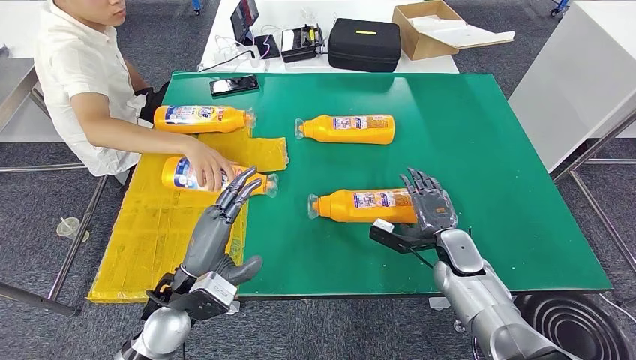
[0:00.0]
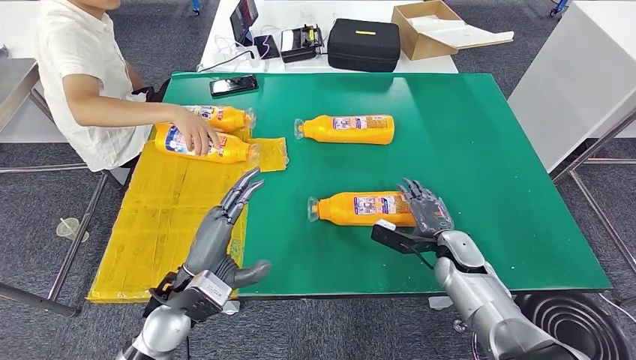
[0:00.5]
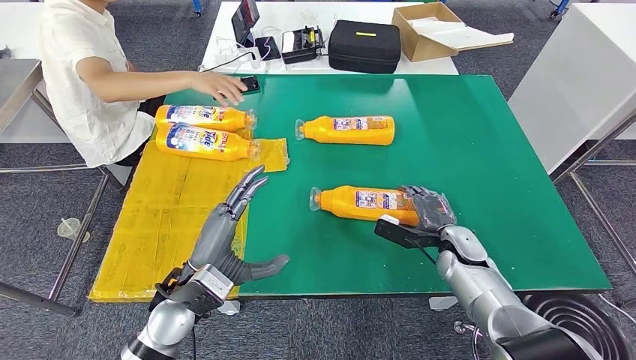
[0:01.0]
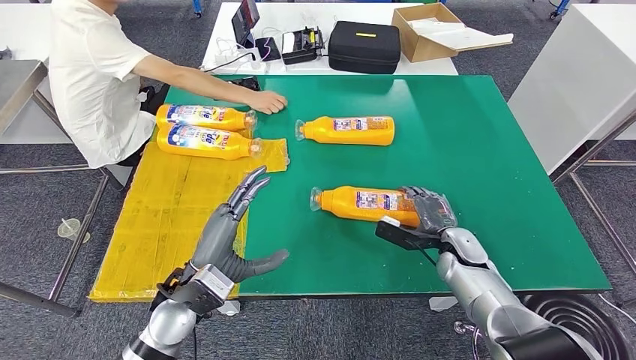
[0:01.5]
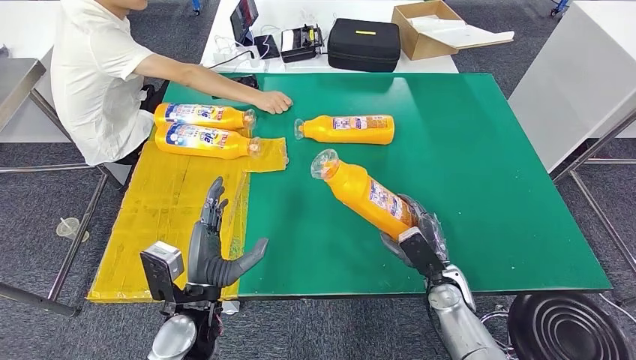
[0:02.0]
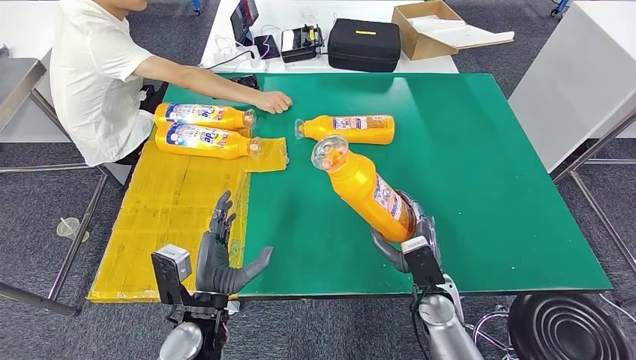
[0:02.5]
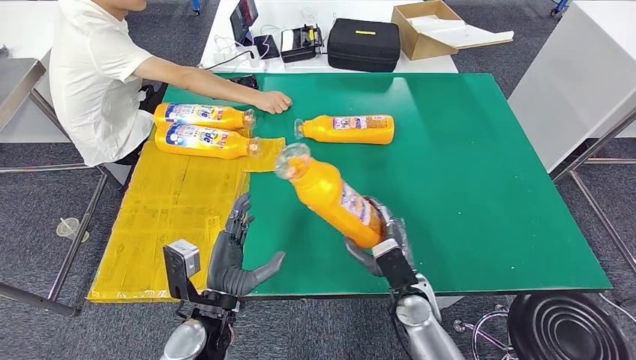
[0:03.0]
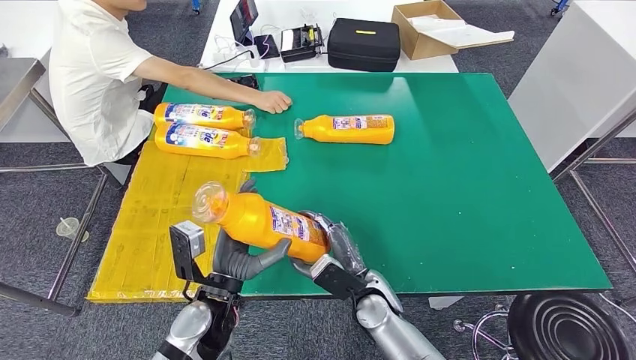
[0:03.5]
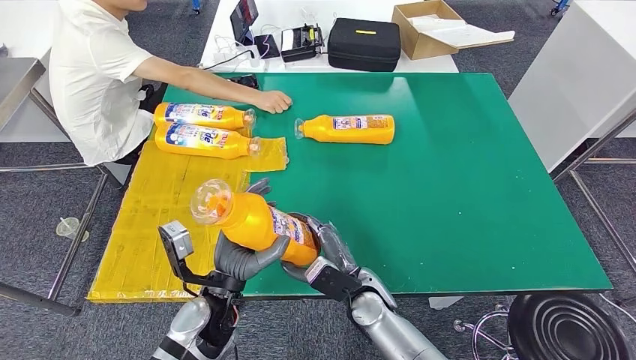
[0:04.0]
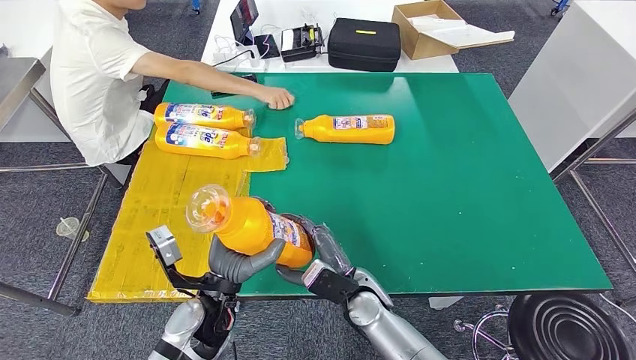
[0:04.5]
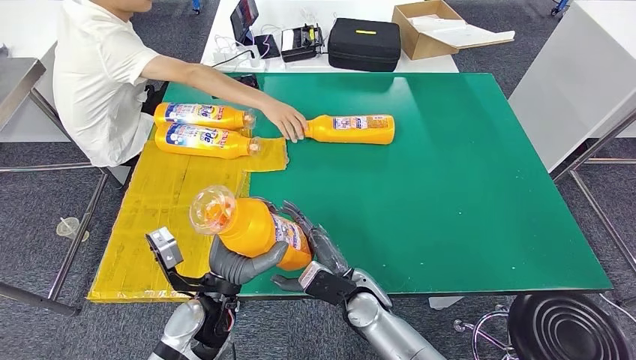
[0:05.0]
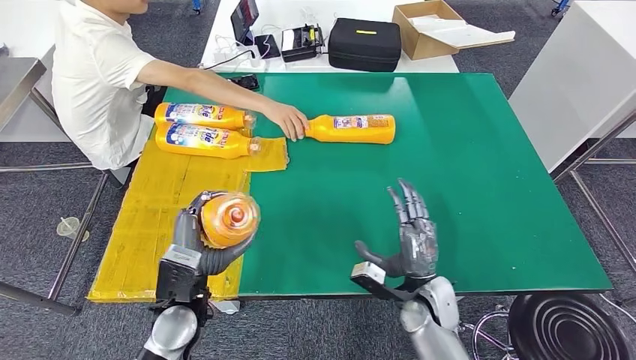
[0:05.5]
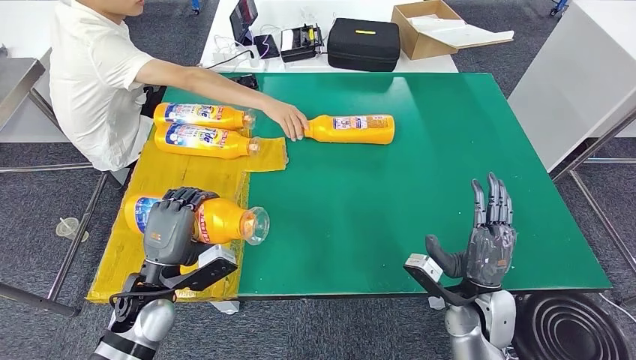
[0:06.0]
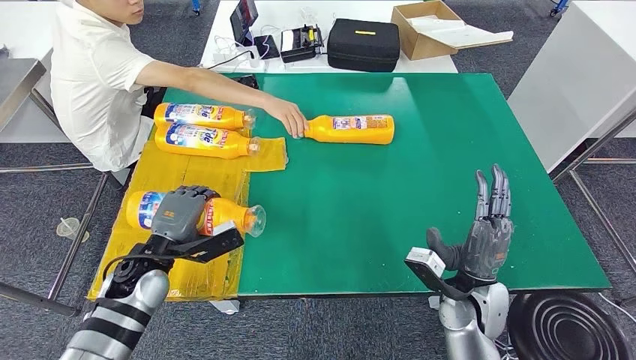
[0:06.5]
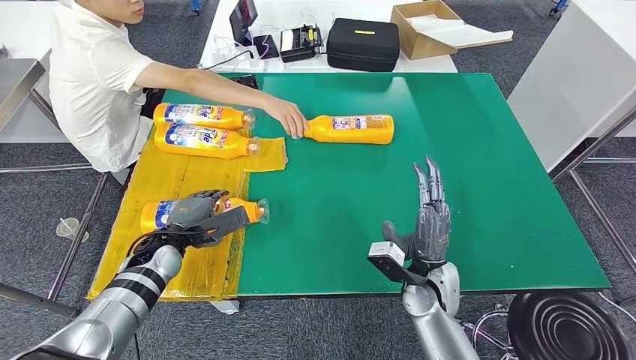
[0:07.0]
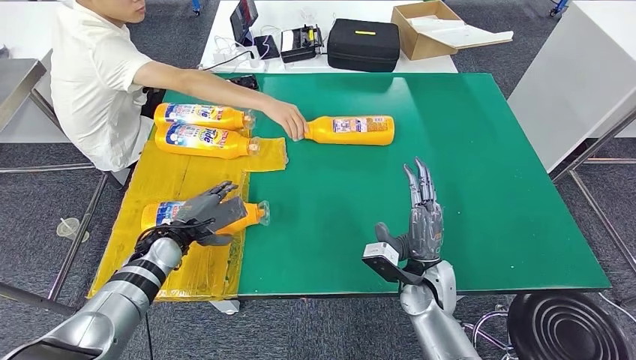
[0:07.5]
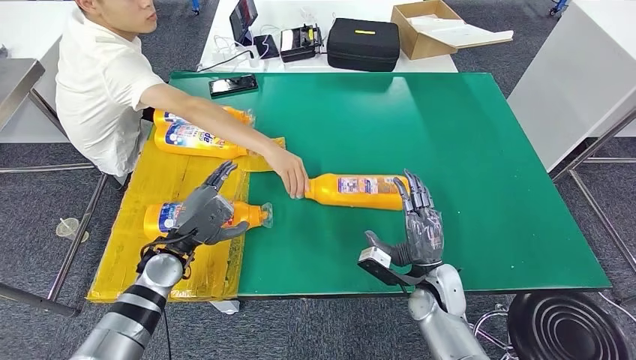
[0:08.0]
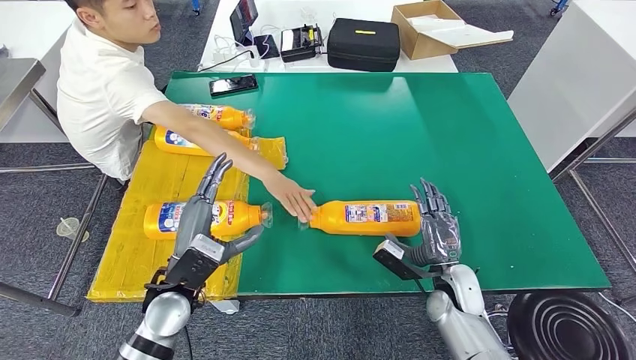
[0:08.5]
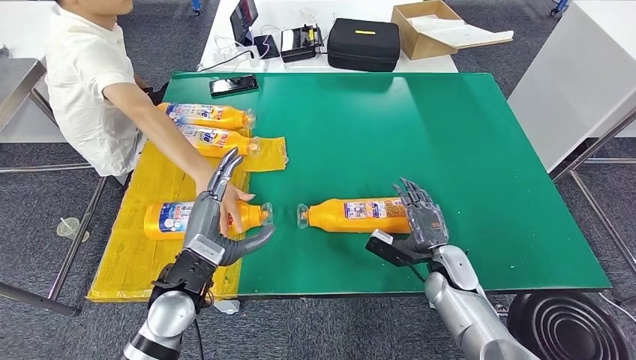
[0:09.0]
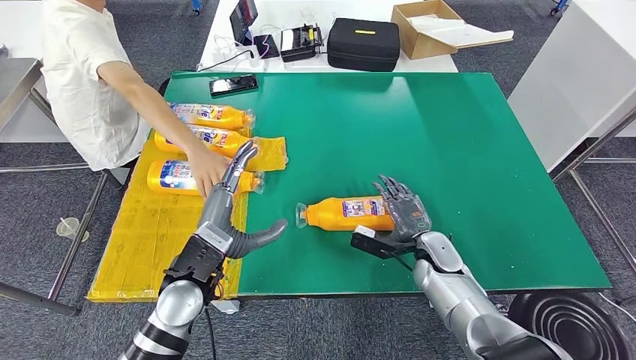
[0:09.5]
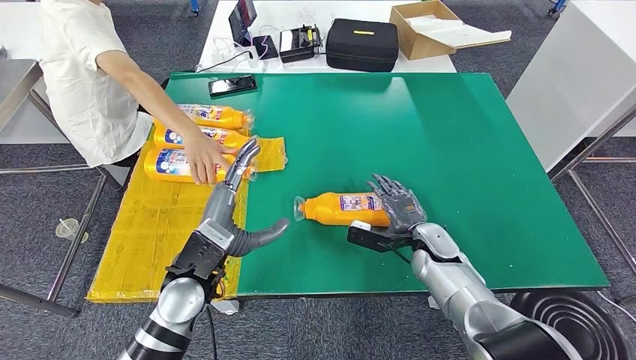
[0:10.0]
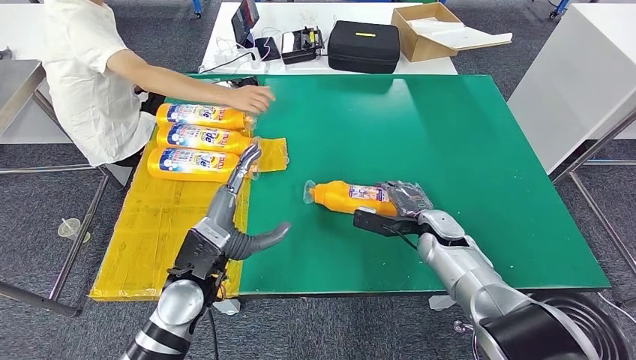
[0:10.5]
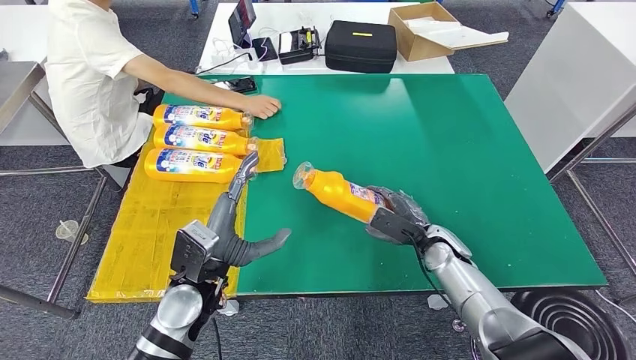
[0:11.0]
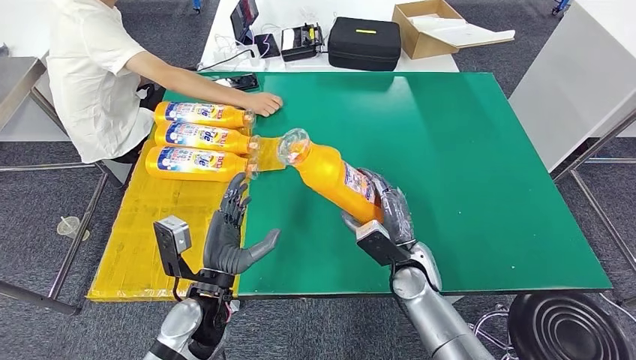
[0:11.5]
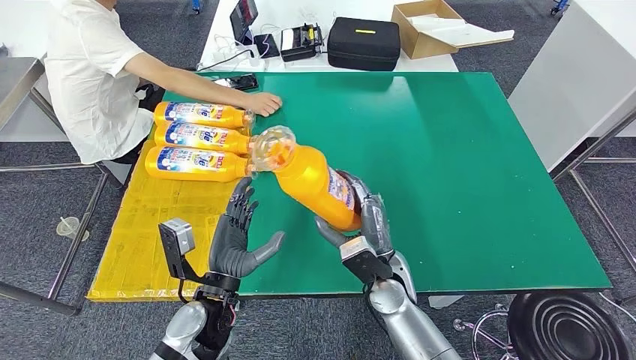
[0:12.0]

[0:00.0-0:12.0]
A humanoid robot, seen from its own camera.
Step, 0:00.0 to 0:02.5: Pick up the bottle from the table.
Step, 0:03.0 to 0:06.0: Flip the bottle to face forward.
0:00.0 to 0:02.0: The right hand goes roughly 5 cm backward.
0:02.0 to 0:04.0: The right hand is displaced to the left by approximately 15 cm.
0:04.0 to 0:06.0: The left hand is displaced to the left by some 10 cm, while the right hand is displaced to the right by some 20 cm.

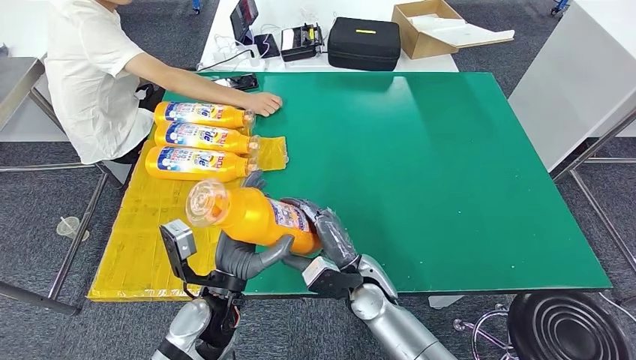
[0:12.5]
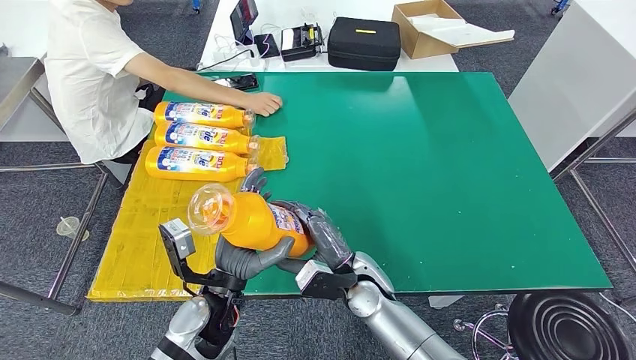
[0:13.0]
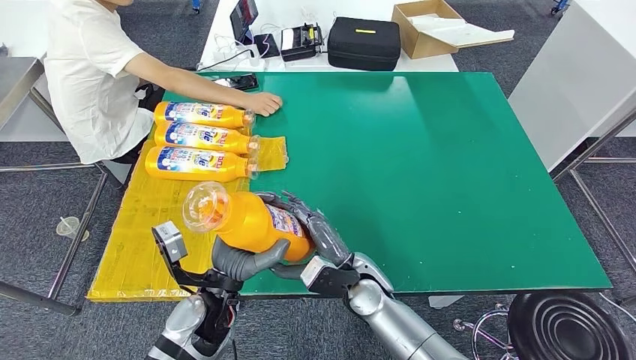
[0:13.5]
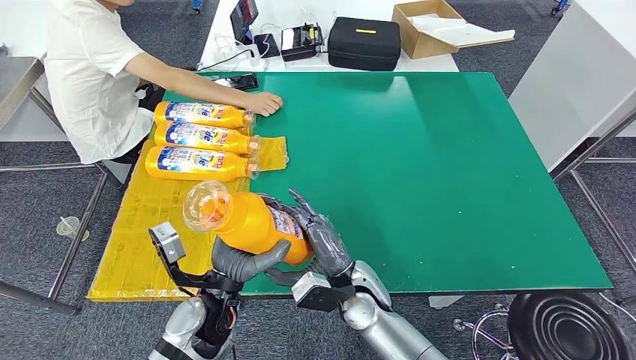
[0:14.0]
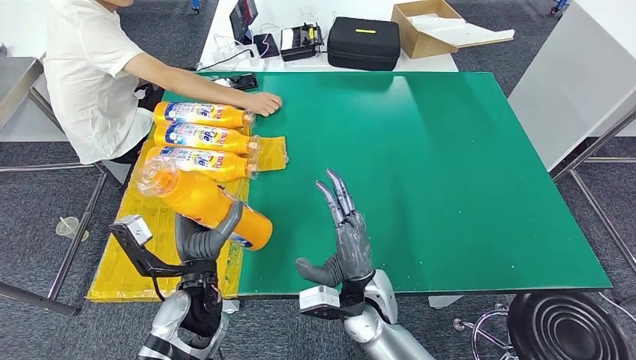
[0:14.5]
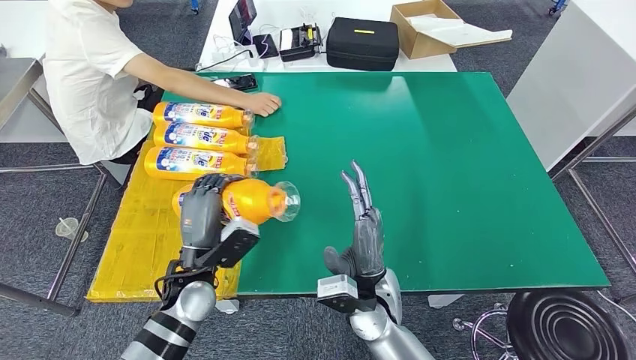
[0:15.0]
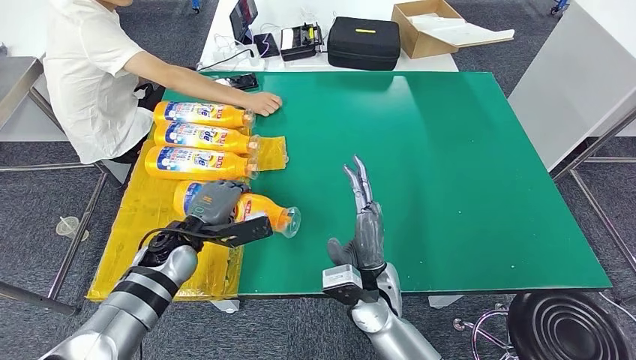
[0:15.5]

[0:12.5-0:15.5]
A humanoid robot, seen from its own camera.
Step, 0:12.5 to 0:15.5: Flip the bottle to face forward.
0:12.5 to 0:14.0: The hands move only a little.
0:14.0 to 0:15.5: The left hand moves forward and to the left, approximately 15 cm.

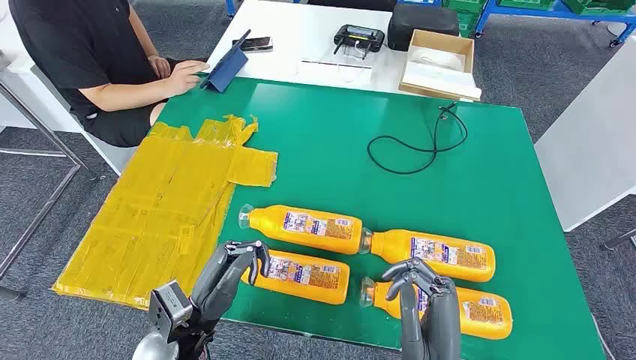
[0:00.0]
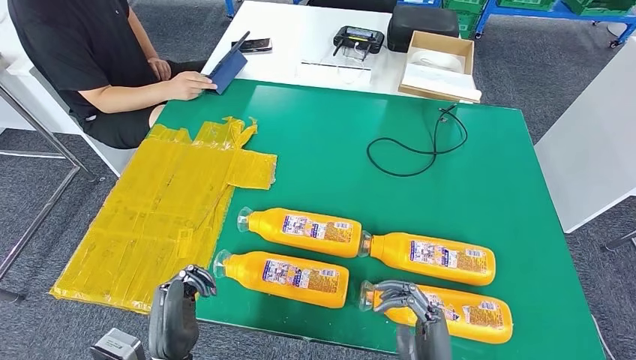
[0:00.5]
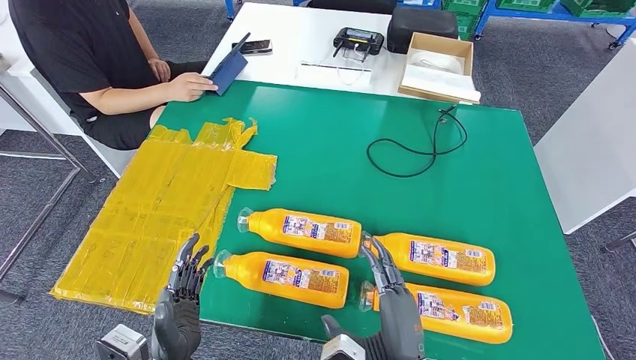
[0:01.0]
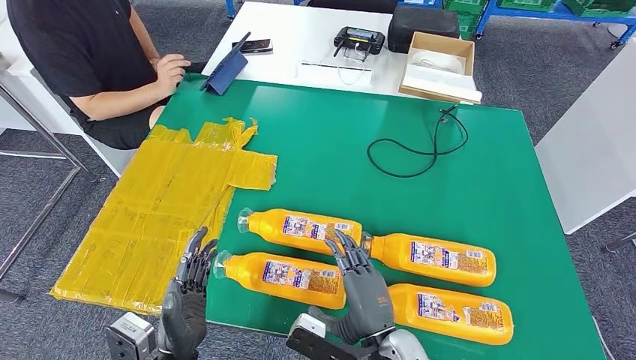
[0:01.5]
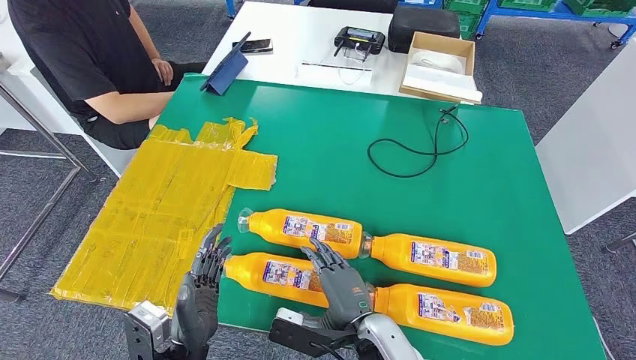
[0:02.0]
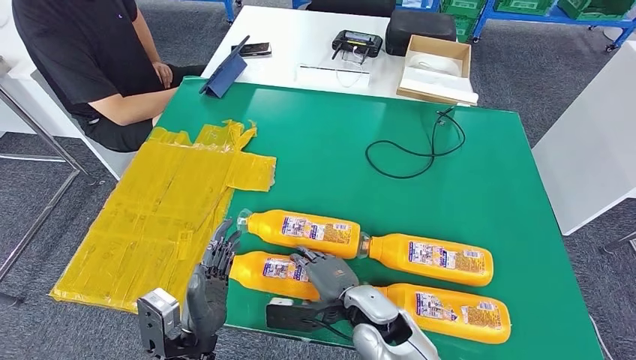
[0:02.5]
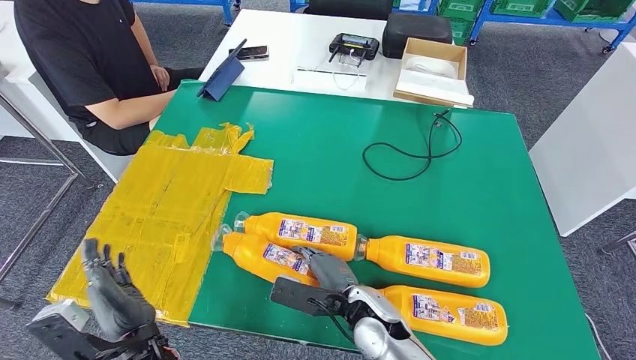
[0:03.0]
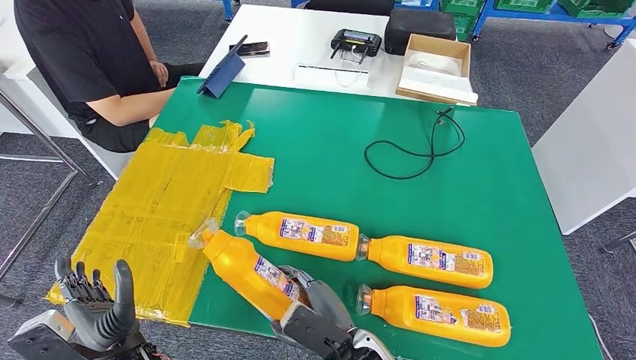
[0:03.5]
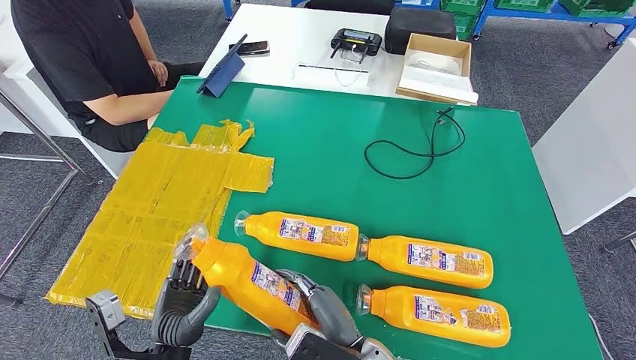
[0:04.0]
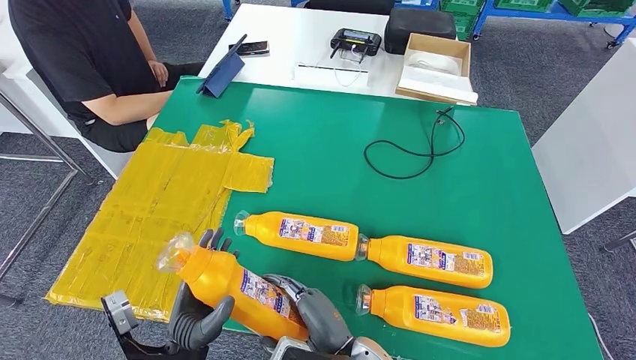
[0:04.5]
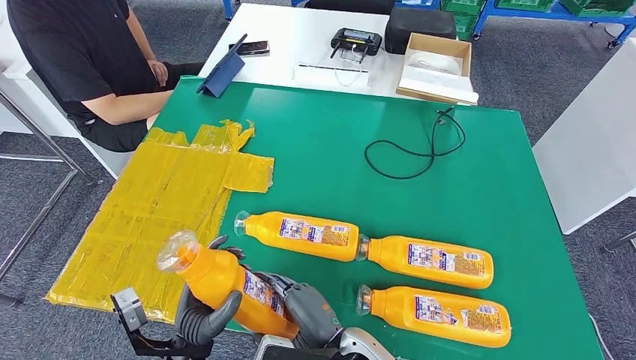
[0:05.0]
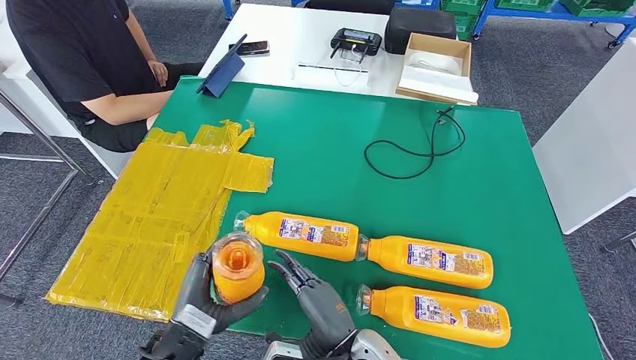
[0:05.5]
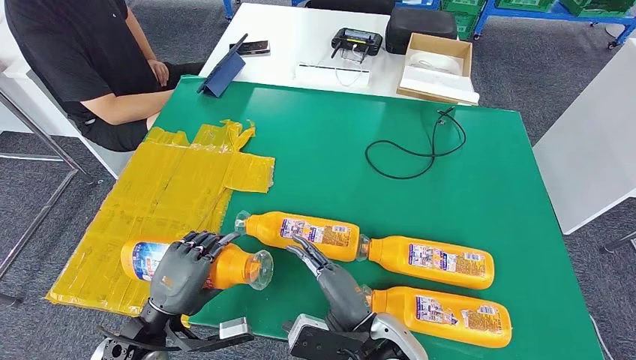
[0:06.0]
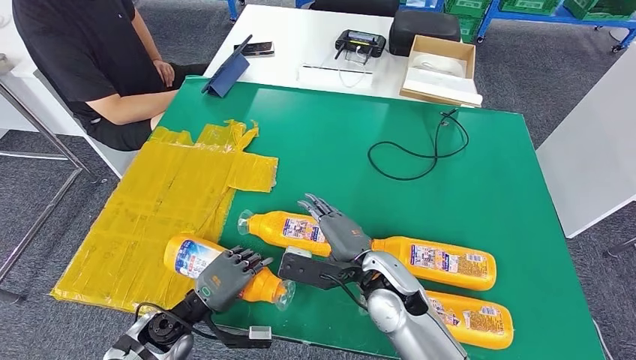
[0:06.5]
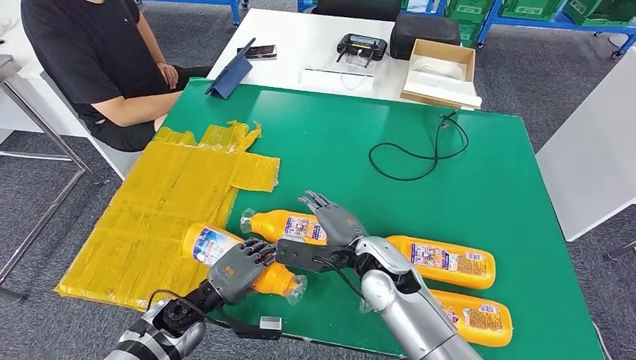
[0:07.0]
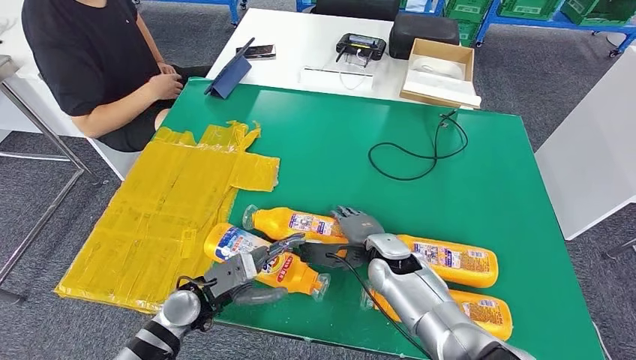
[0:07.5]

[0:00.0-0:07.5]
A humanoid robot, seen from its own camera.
Step, 0:00.0 to 0:03.5: Take the bottle from the table.
